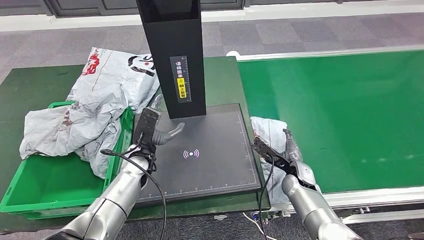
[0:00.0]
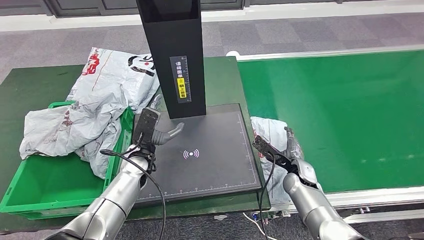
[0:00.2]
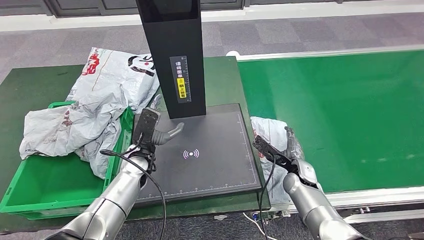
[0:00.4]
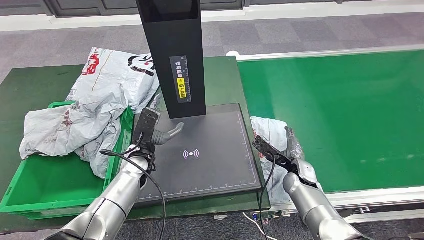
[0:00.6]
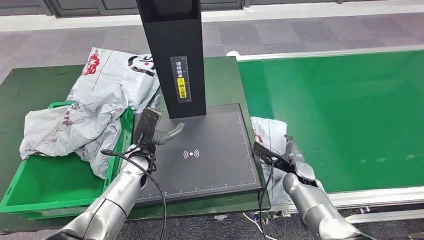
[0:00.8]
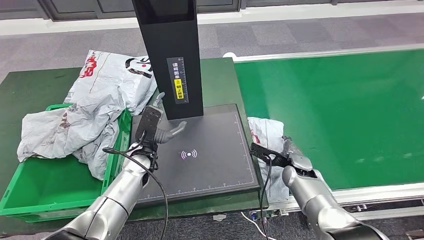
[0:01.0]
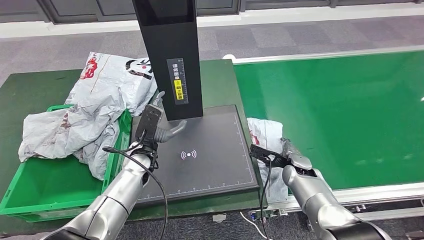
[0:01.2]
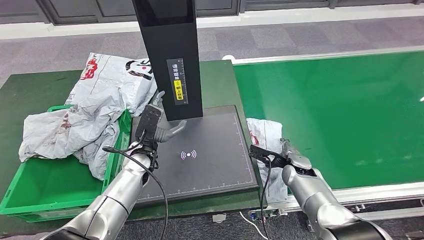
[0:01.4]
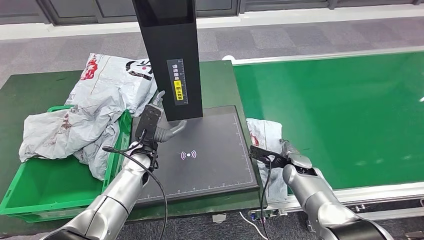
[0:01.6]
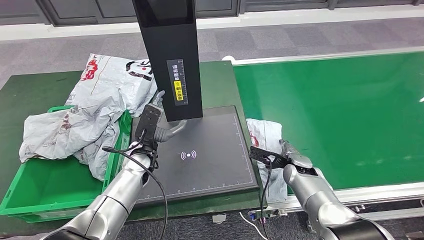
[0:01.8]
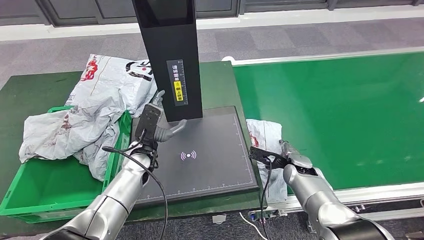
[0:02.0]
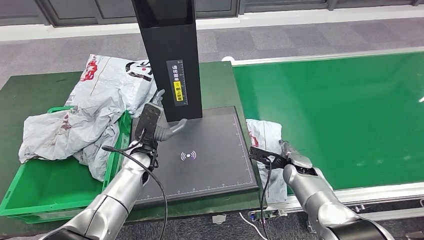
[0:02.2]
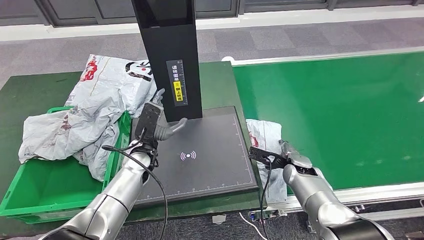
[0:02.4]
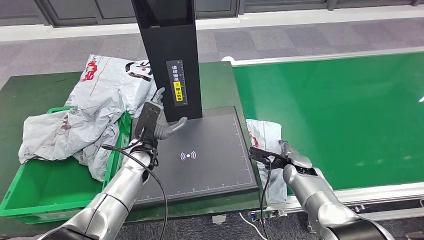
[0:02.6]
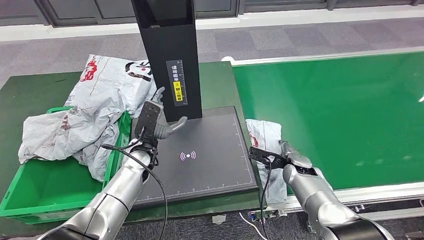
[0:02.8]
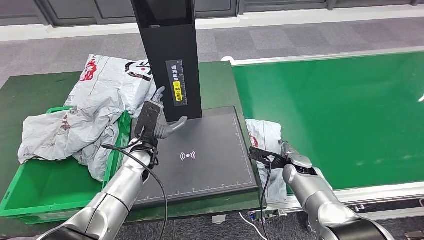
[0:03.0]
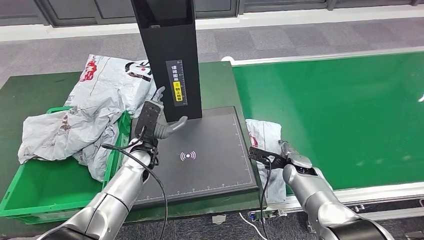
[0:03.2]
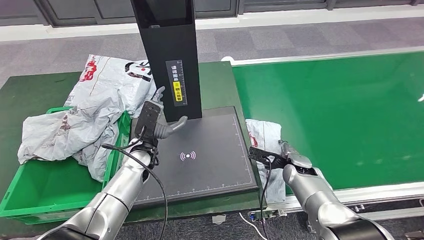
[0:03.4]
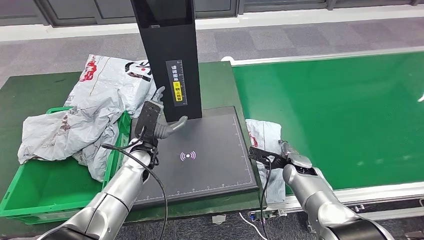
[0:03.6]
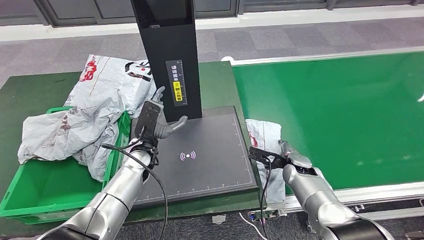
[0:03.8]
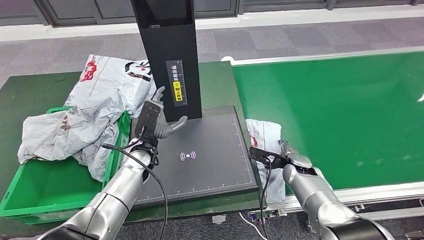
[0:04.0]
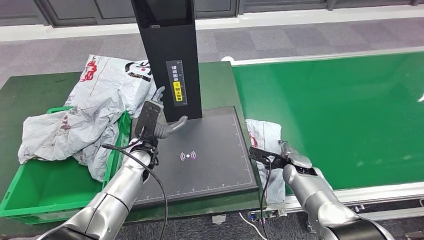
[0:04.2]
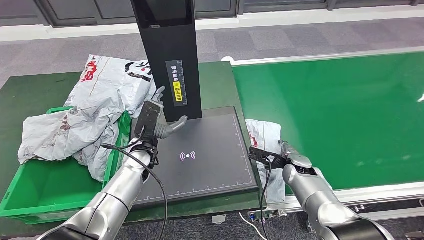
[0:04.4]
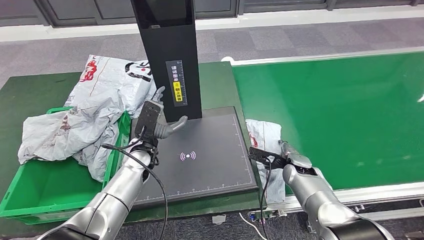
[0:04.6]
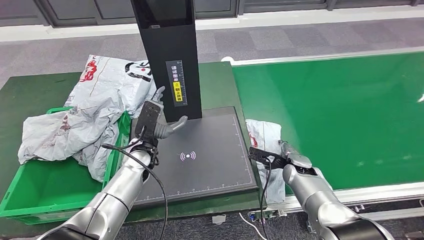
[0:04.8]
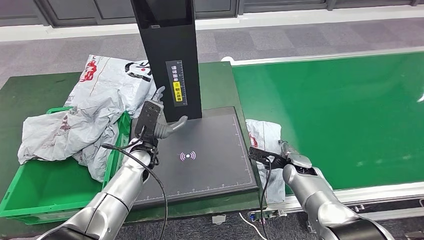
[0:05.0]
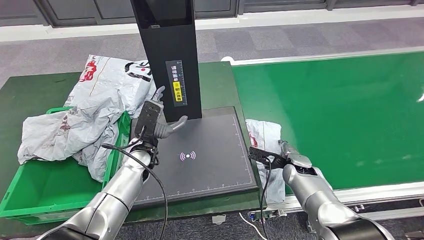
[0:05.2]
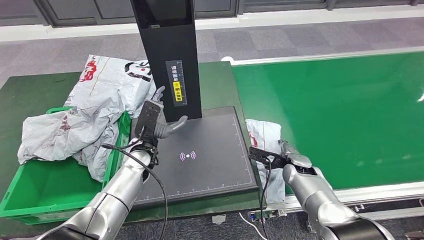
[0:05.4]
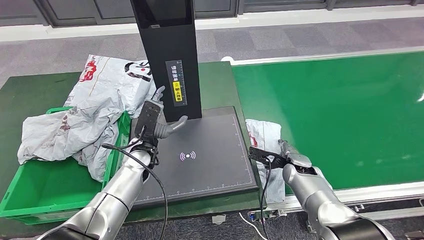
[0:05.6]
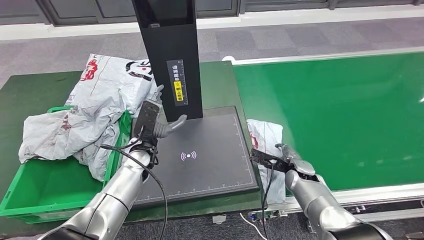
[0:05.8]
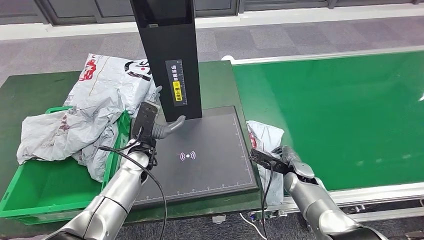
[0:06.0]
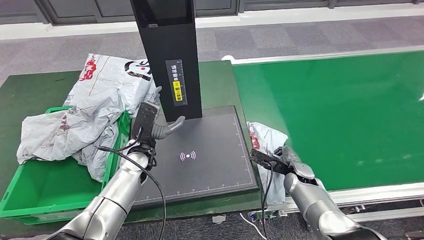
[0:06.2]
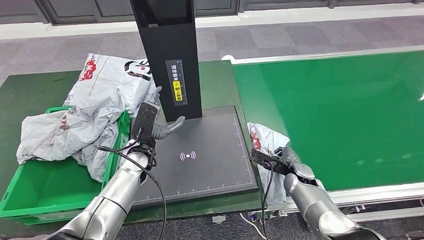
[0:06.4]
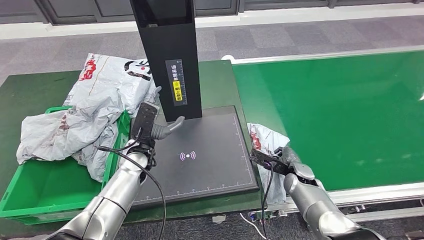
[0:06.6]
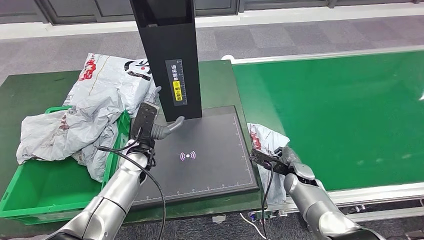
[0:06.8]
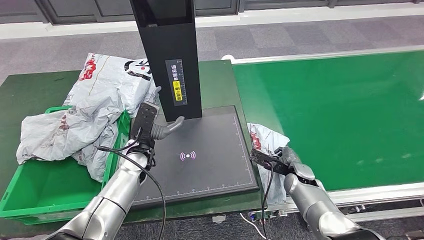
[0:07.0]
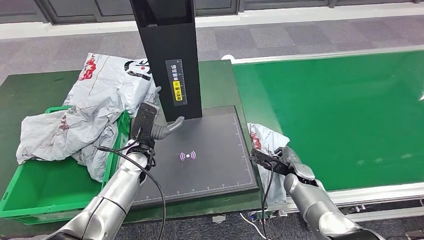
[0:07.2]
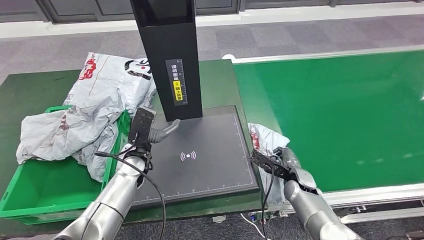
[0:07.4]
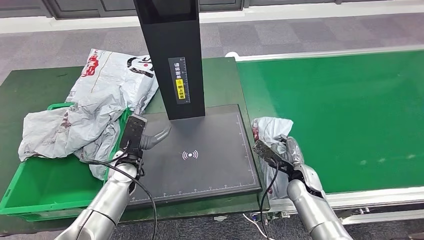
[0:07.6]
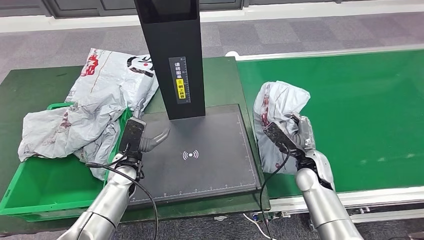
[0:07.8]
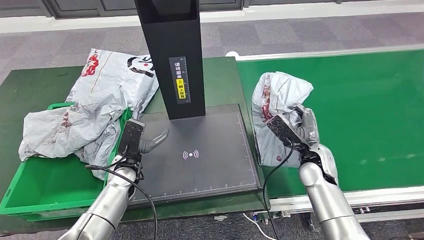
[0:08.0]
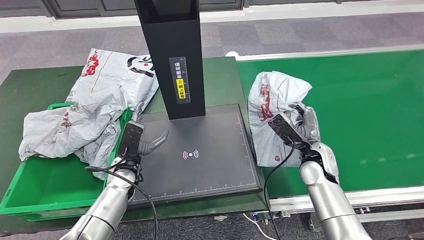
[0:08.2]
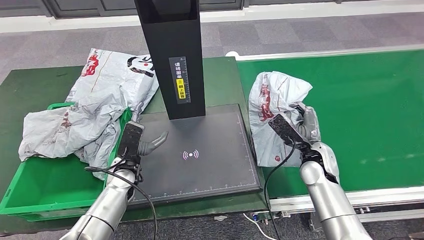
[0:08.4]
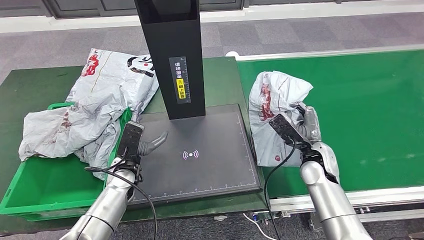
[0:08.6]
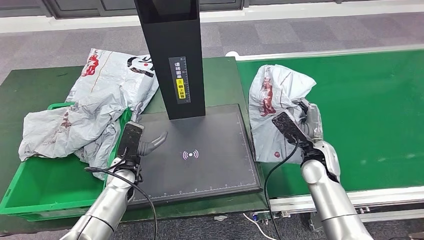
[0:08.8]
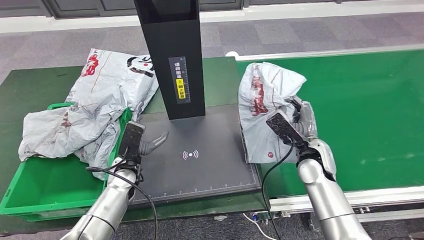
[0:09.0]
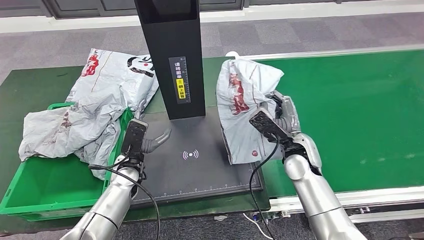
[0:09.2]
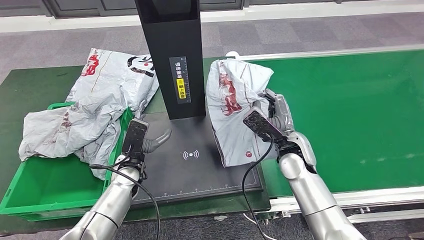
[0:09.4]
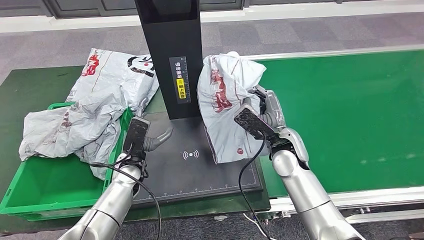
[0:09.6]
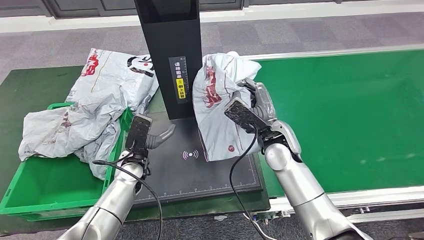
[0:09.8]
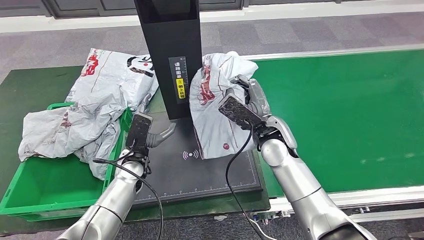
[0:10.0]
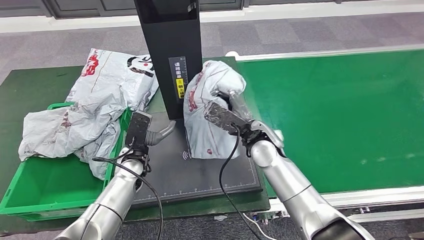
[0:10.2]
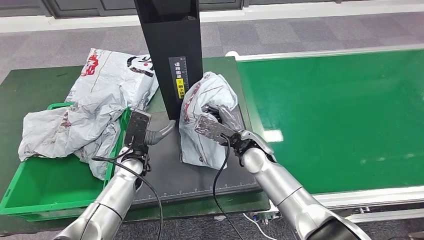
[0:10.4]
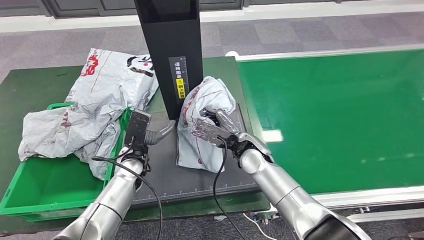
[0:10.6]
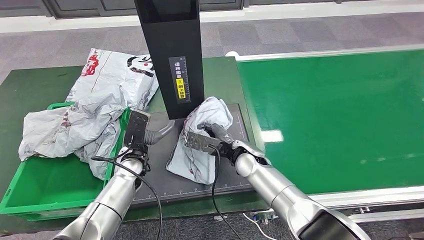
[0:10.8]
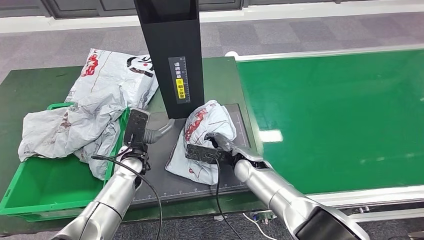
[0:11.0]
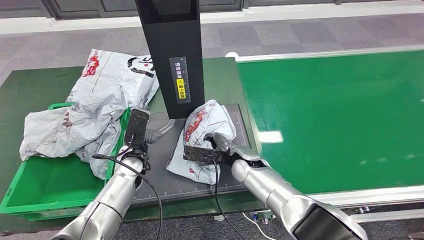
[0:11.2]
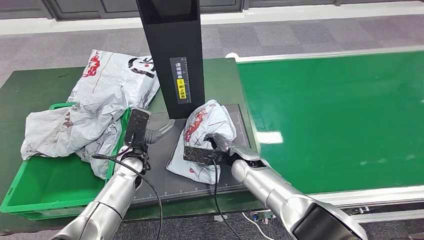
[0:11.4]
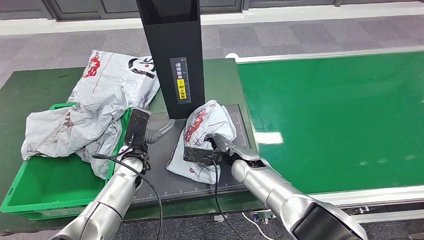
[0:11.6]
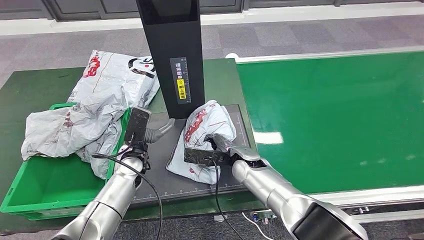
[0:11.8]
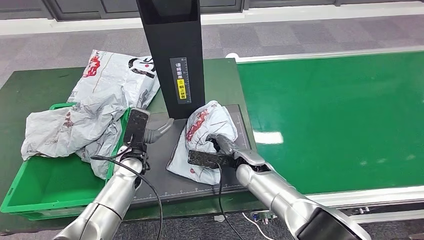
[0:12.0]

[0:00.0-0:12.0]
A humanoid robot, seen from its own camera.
Step, 0:03.6 to 0:09.2: Pick up the parcel from the conveyor belt.
0:01.6 to 0:04.4: Both hands stay put.
0:04.4 to 0:06.0: There are only small adjustments of the hands.
0:07.6 to 0:09.0: The right hand goes about 10 cm upward.

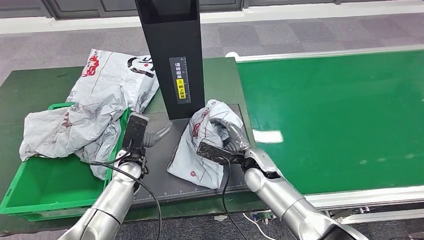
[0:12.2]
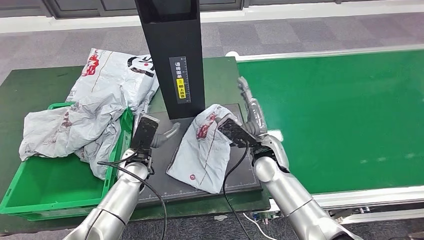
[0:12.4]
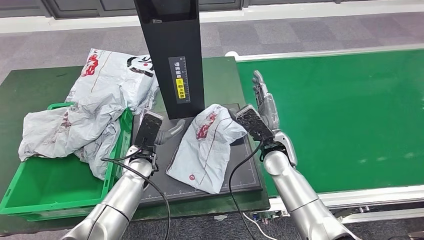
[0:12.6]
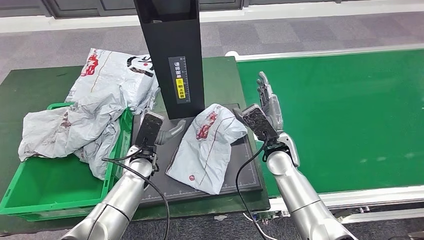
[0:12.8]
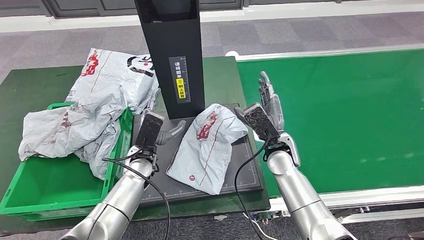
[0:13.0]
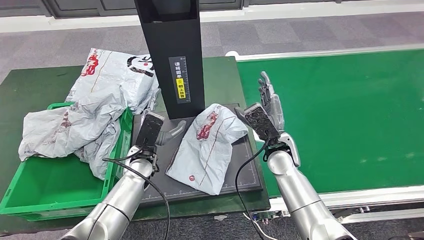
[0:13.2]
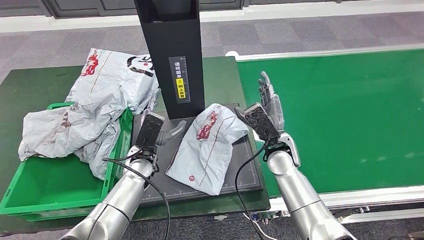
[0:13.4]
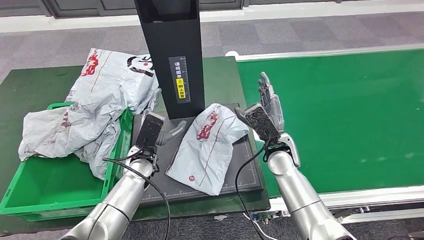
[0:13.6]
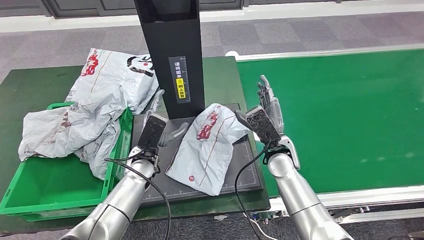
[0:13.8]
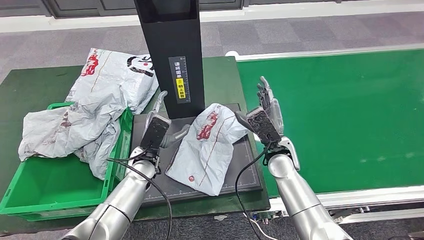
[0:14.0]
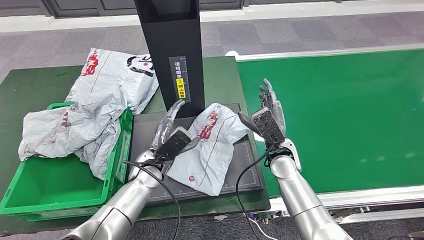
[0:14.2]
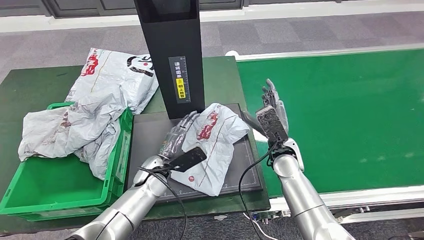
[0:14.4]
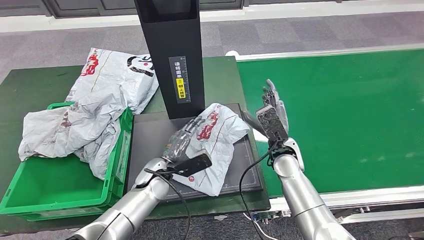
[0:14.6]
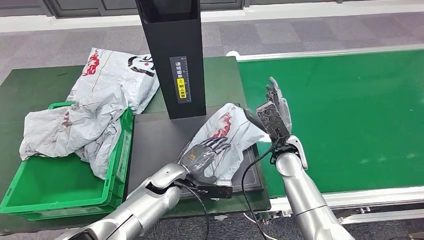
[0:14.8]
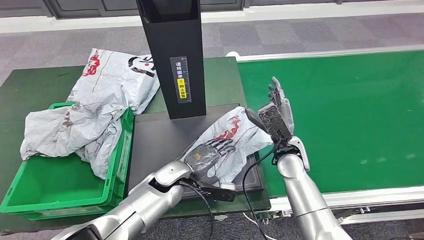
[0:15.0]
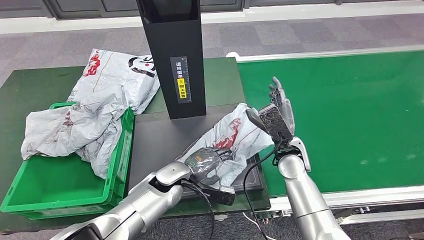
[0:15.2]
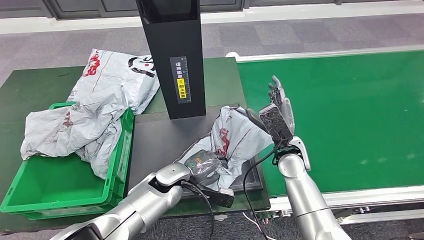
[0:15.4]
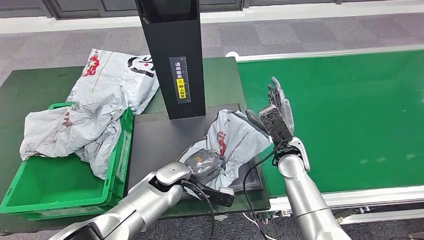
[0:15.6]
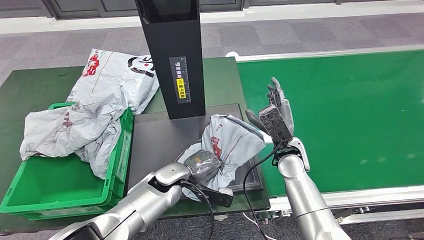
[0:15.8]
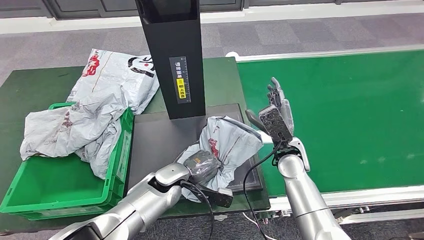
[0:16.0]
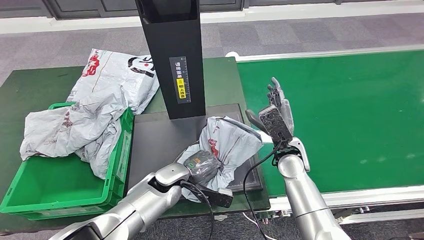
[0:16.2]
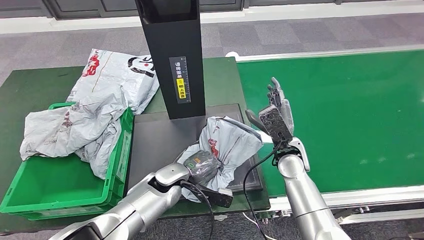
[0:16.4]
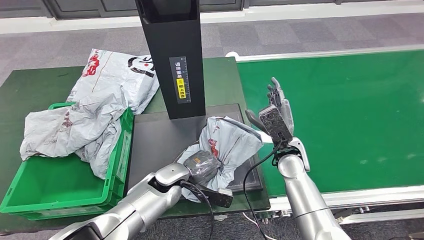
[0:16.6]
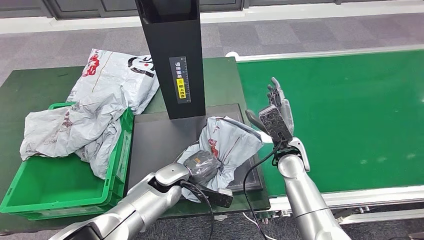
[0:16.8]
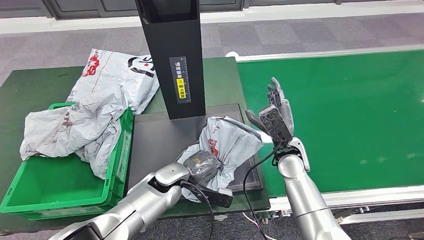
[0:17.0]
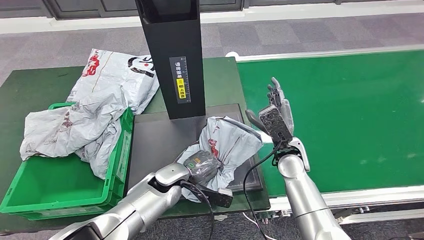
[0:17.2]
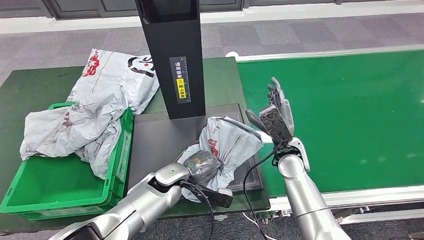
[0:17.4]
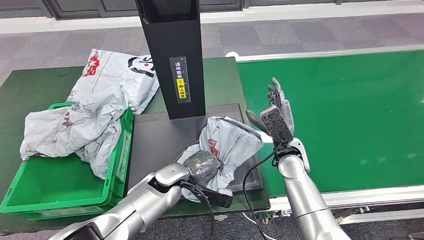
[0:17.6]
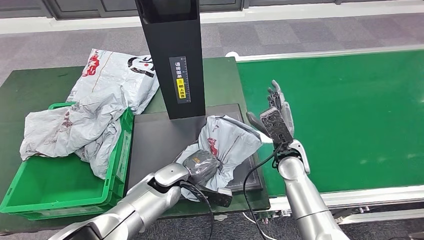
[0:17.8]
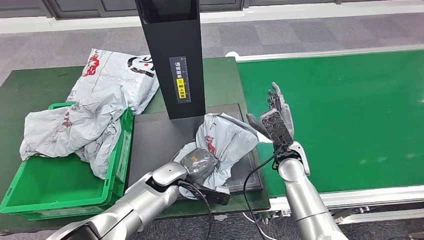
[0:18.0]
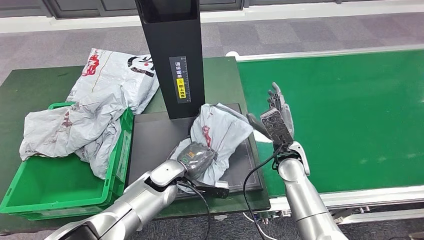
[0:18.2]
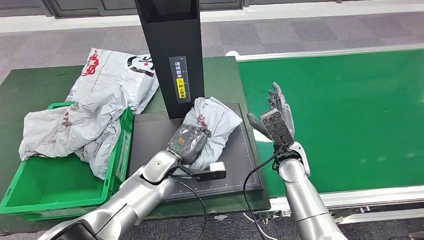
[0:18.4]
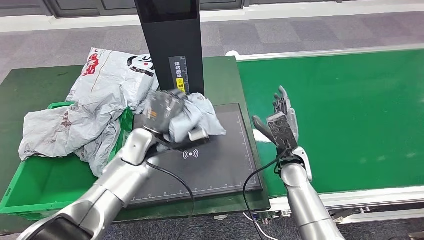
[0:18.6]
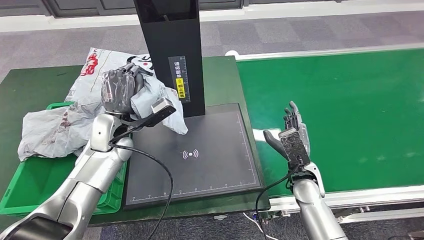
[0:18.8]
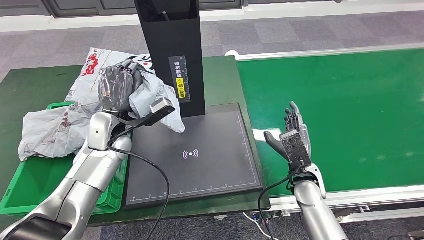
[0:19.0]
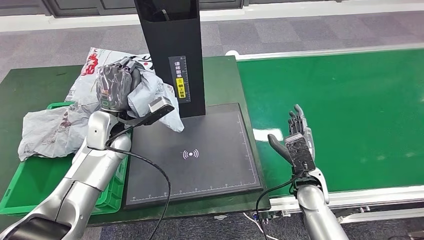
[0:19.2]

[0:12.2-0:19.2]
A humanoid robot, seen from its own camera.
0:12.2 to 0:13.6: The right hand goes approximately 5 cm to the right.
0:15.0 to 0:16.4: The hands stay close to where they were, moving slightly.
0:16.4 to 0:17.8: Both hands stay put.
